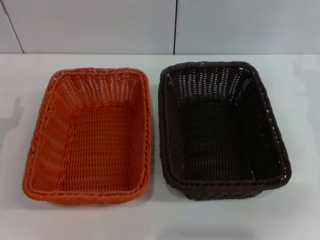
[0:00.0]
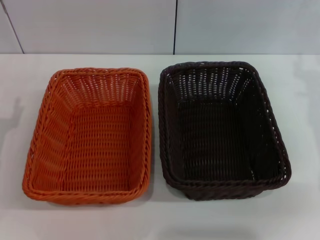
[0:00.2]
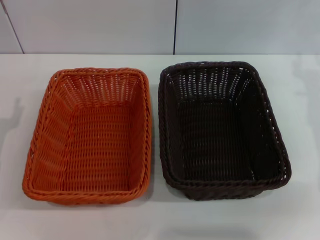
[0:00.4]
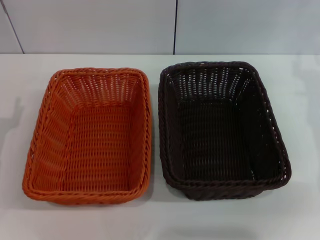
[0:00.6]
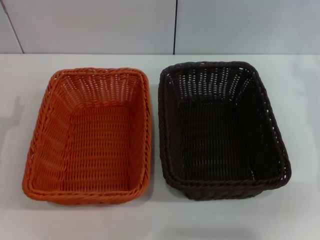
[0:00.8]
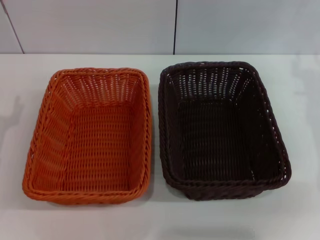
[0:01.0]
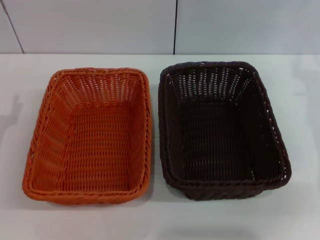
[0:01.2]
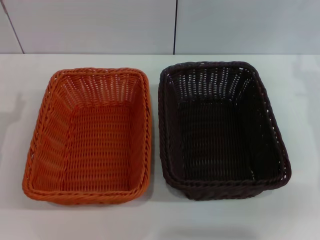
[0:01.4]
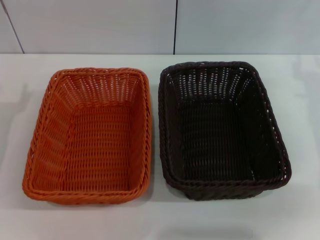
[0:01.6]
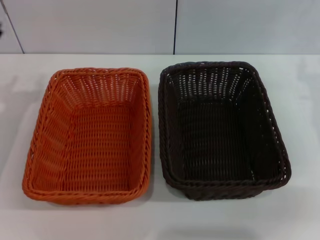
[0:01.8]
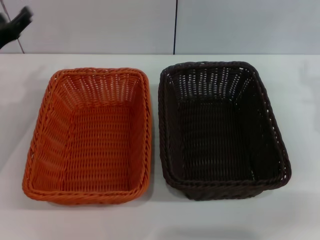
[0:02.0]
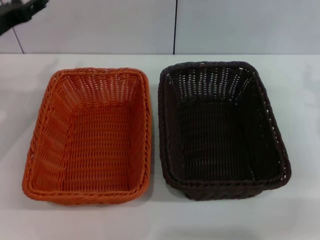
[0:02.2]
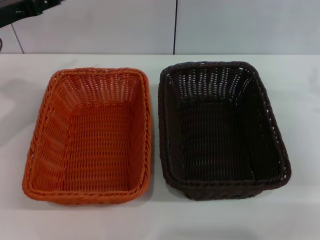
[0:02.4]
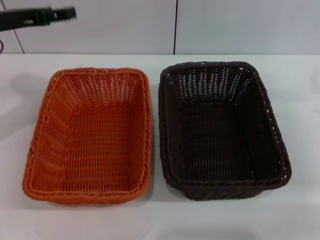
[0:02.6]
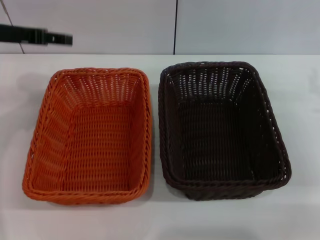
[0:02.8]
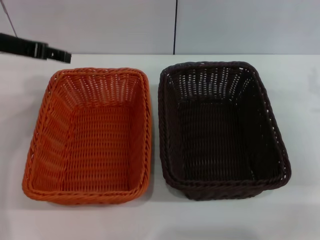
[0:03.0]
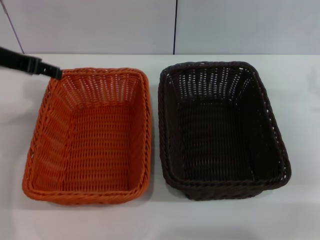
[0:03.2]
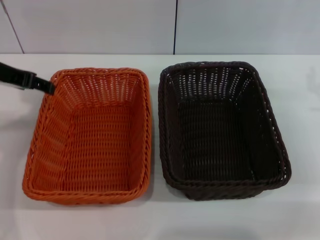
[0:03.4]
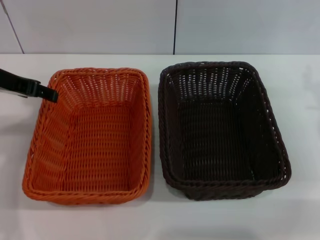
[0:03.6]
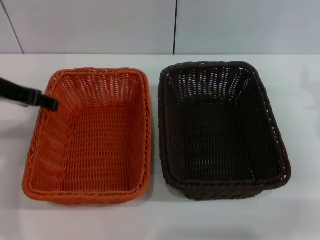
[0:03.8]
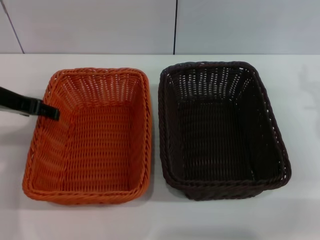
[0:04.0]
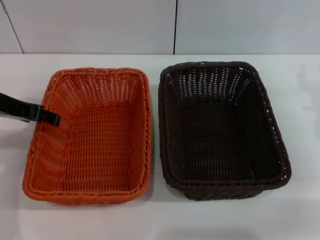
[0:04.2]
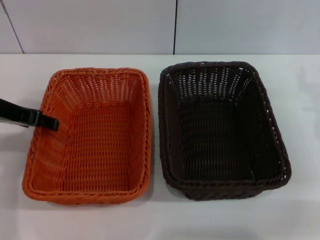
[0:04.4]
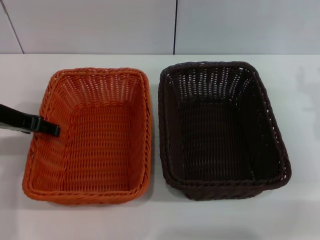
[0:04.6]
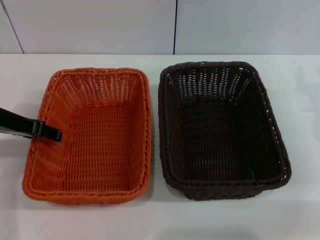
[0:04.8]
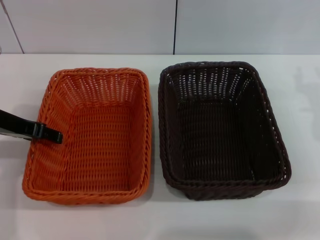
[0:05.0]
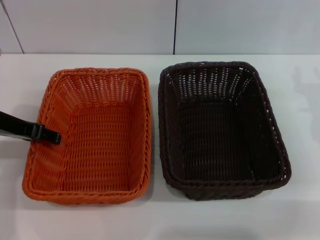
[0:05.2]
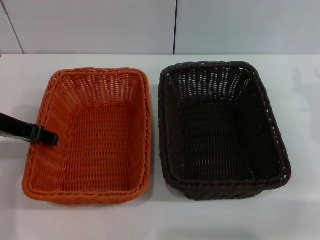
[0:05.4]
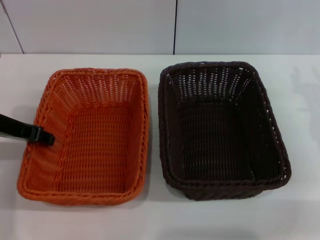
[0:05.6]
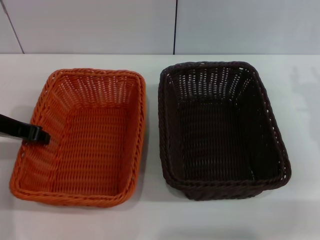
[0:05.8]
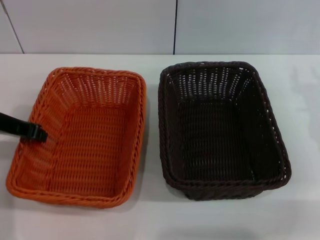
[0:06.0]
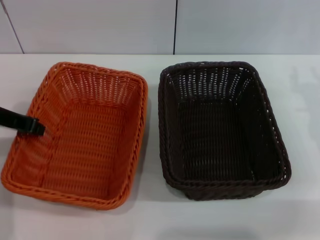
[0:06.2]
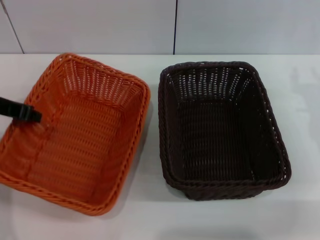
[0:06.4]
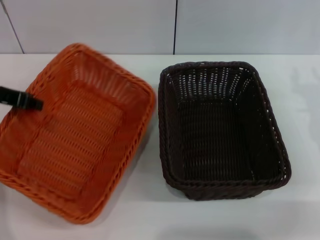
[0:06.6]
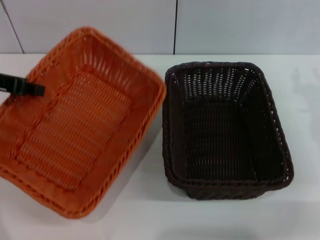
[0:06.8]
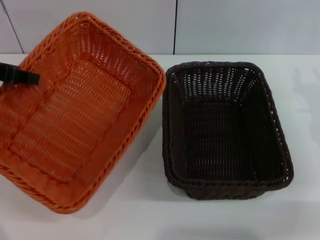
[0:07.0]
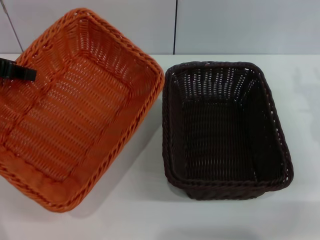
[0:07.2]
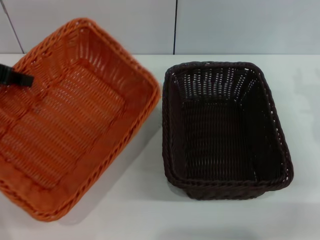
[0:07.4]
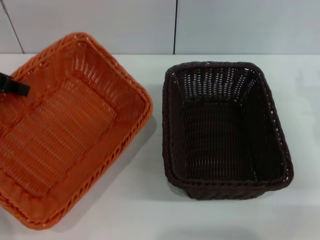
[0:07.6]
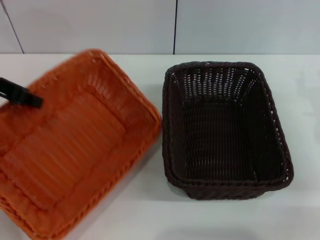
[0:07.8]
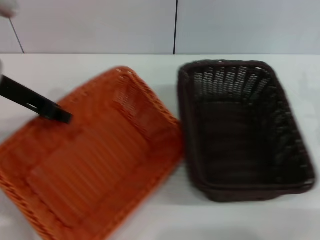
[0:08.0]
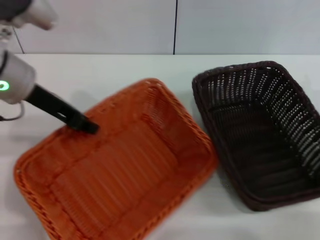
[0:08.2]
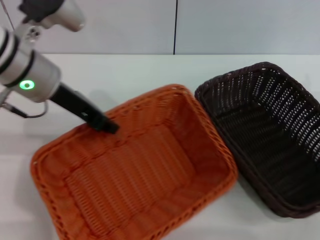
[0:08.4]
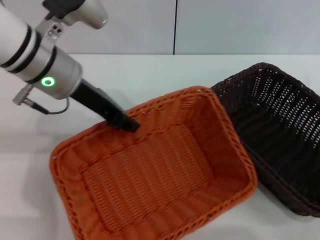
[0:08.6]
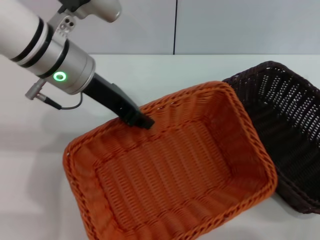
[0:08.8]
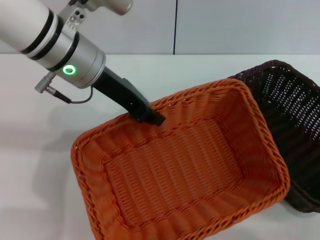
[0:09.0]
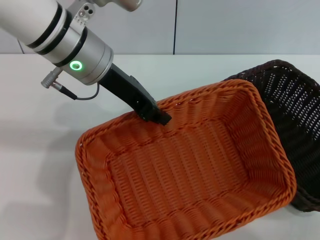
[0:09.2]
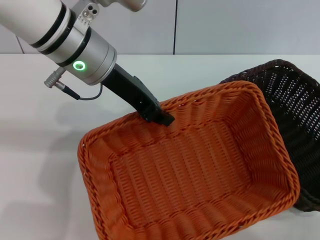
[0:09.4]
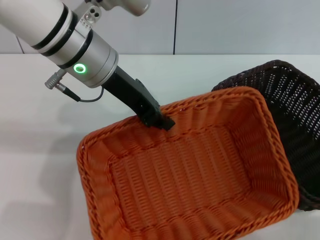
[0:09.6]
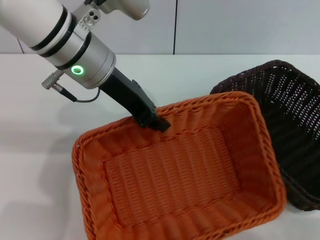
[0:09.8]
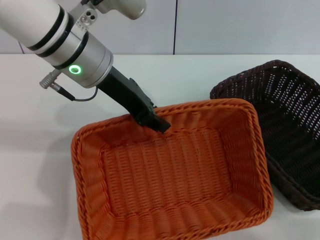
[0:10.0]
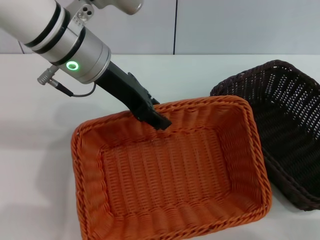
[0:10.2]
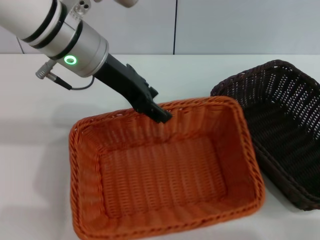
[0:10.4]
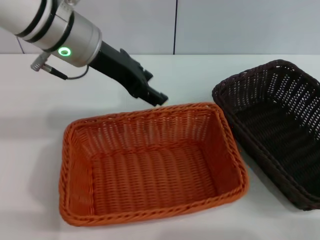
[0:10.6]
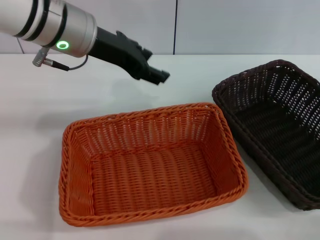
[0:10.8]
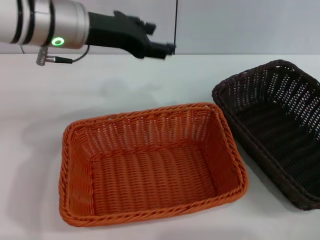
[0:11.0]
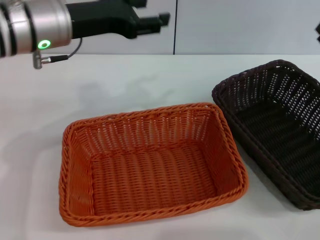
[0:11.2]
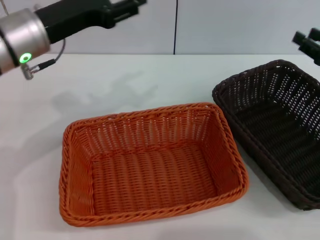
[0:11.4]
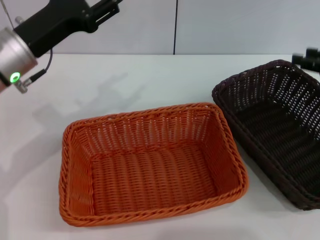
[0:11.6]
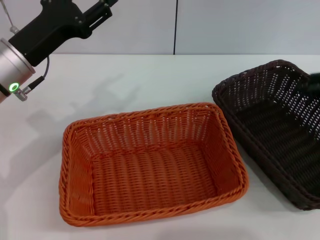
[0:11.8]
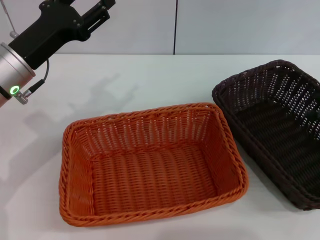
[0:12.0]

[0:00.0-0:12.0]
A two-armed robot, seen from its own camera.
Step, 0:00.0 to 0:06.6: Pick up the light basket with the left gripper.
Step, 0:06.8 to 0:10.4: Place the light basket in the center of view with the left gripper.
0:01.6 to 0:03.0: The left gripper moves upward and forward, approximately 15 cm.
0:03.0 to 0:04.4: The left gripper heads downward, covering approximately 5 cm.
0:04.4 to 0:06.0: The left gripper closes its fingers.
0:06.0 to 0:07.6: The left gripper is displaced upward by about 10 cm.
0:07.6 to 0:09.0: The left gripper goes roughly 20 cm to the right.
0:09.0 to 0:10.4: The left gripper opens up.
0:10.4 to 0:12.0: The left gripper goes some 15 cm to the left and downward. Meanwhile the right gripper heads upward, covering roughly 15 cm.

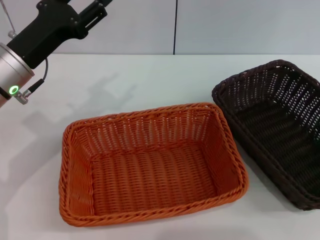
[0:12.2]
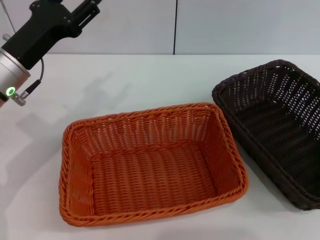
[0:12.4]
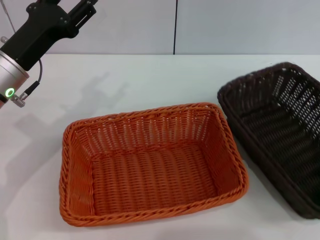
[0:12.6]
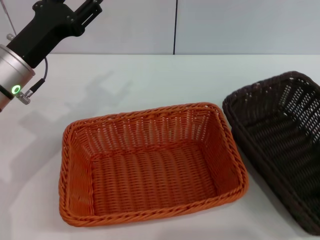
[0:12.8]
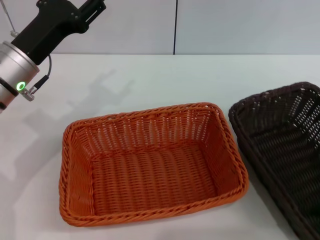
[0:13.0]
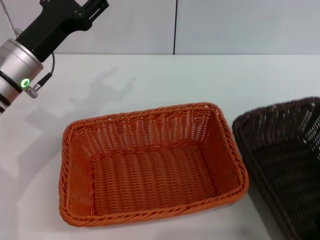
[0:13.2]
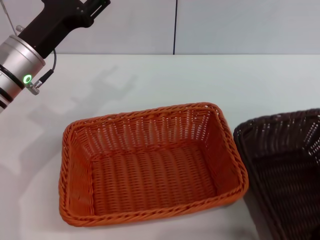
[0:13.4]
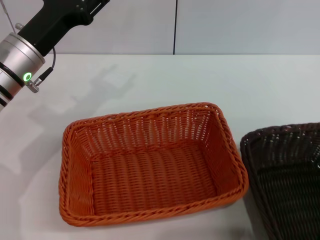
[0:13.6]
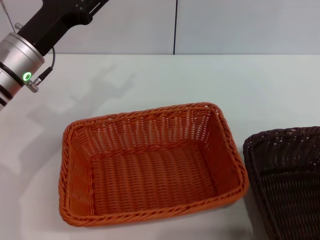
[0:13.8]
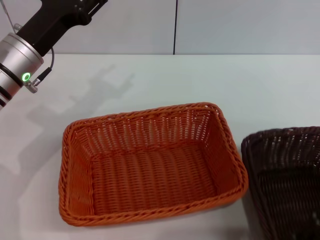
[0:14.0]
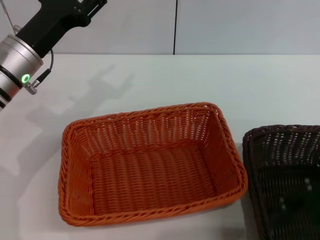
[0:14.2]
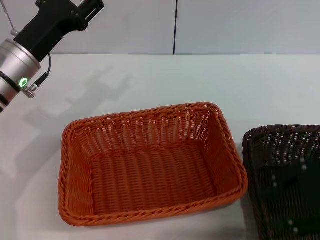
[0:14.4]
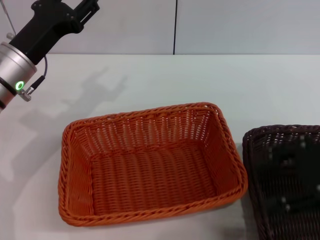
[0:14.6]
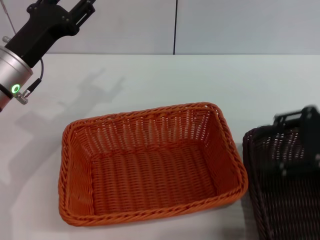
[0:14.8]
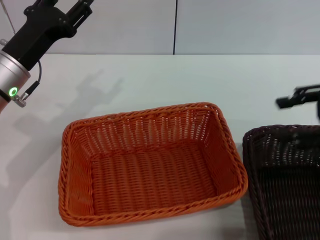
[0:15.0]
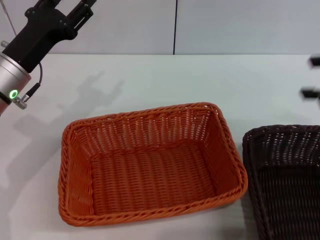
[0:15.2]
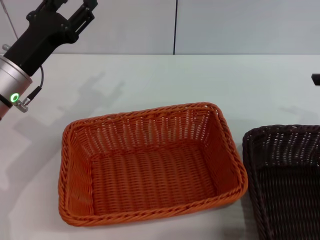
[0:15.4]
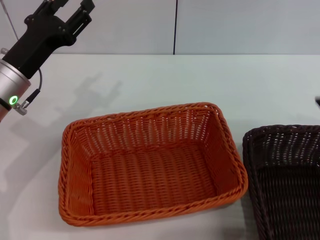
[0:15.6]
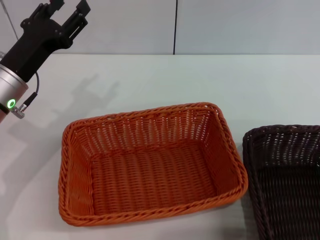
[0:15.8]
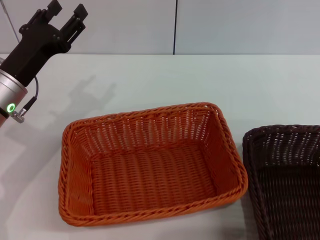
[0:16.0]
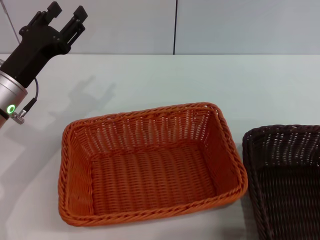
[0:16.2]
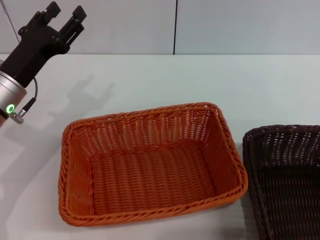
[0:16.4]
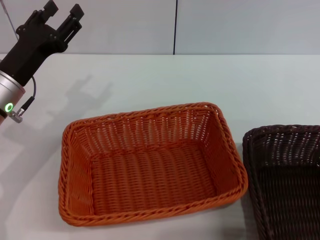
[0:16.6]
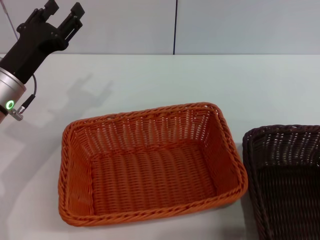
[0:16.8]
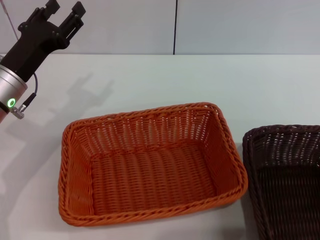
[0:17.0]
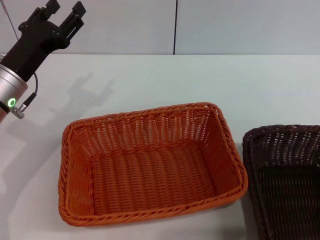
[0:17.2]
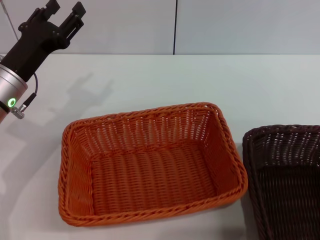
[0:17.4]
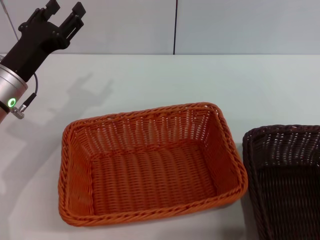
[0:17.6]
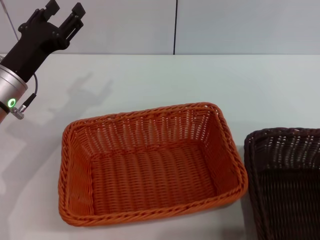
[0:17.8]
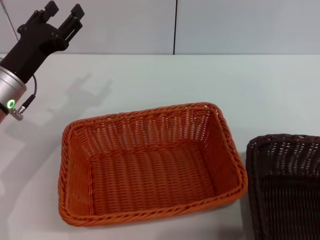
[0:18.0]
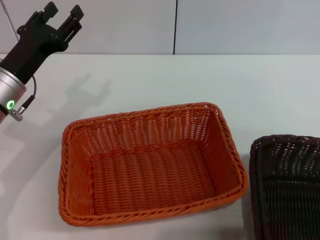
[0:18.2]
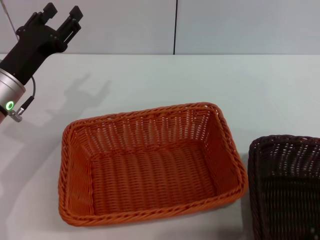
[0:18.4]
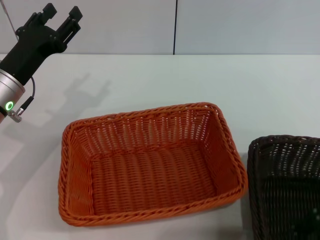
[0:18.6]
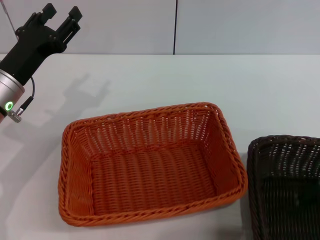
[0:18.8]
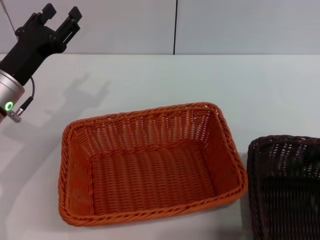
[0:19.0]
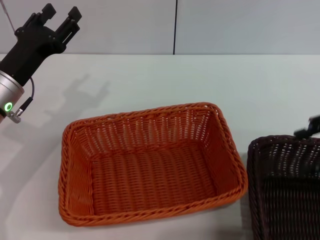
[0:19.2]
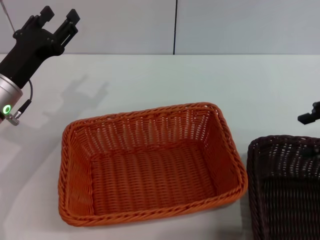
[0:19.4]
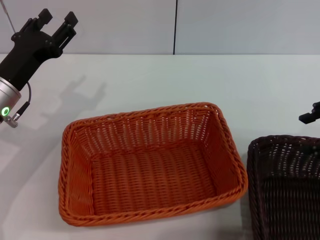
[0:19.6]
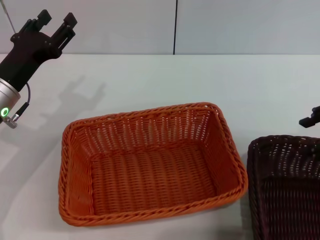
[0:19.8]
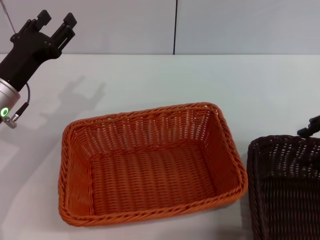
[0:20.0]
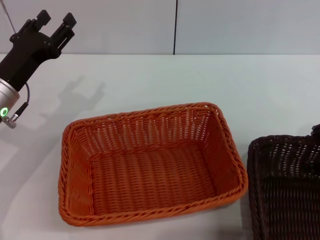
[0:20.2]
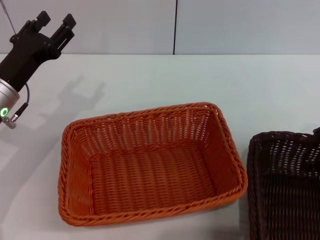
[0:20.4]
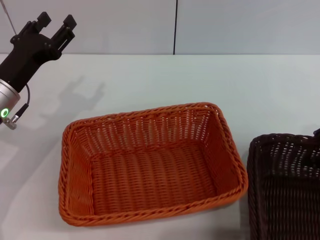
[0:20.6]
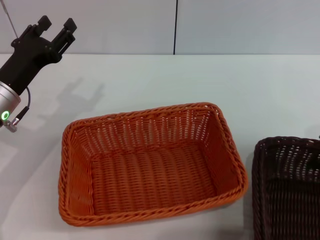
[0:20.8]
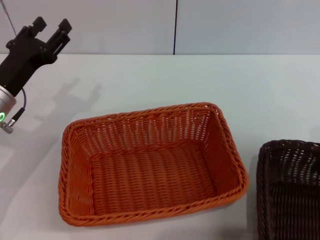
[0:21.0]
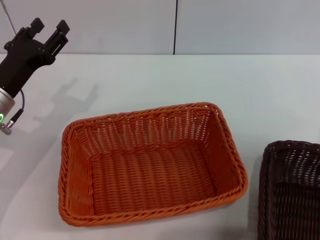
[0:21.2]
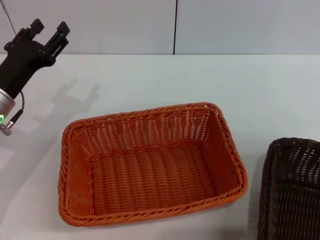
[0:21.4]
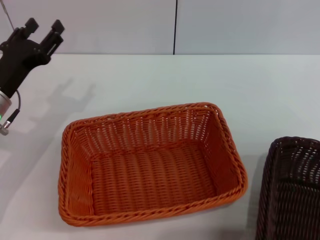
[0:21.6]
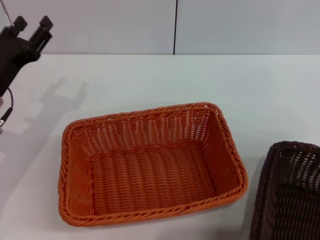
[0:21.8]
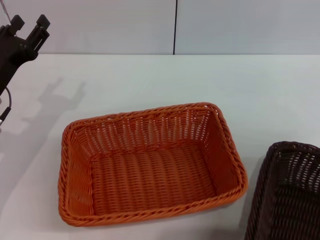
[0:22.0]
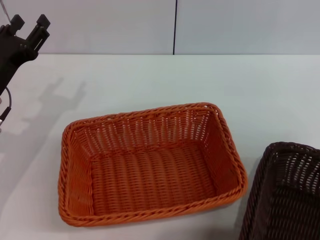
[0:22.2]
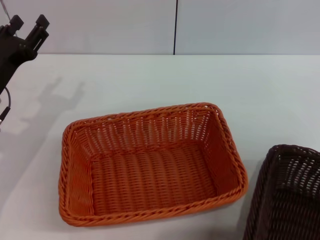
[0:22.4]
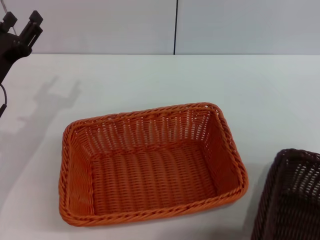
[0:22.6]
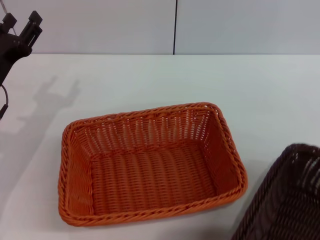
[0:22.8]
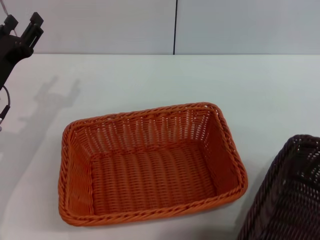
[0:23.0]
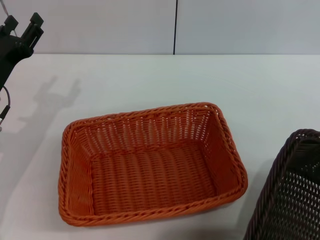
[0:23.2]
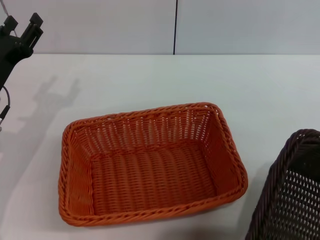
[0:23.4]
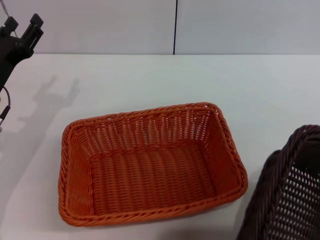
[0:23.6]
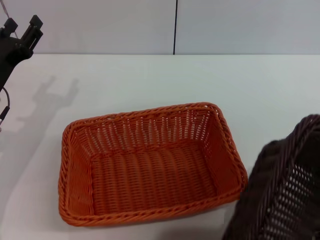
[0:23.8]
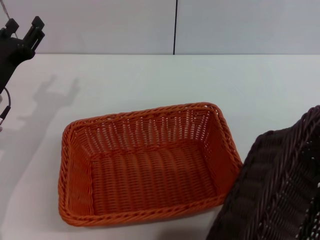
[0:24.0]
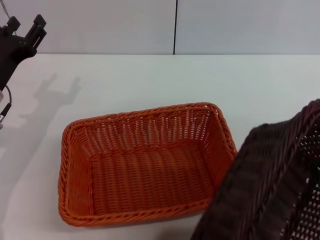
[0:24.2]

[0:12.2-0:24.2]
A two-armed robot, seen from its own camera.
Step, 0:12.2 to 0:21.2: Pick up the dark basket with the right gripper.
0:12.2 to 0:13.8: The right gripper moves backward and to the left, roughly 10 cm.
0:13.8 to 0:15.2: The right gripper moves upward and to the right, some 10 cm.
0:16.6 to 0:18.2: The right gripper goes roughly 10 cm to the left and downward.
0:18.2 to 0:19.8: The right gripper is displaced forward and to the right by roughly 10 cm.
0:19.8 to 0:21.2: The right gripper ends up approximately 5 cm from where it was, and closes.
0:21.2 to 0:22.6: The right gripper moves some 5 cm.
0:22.6 to 0:24.2: The right gripper shifts some 5 cm backward.
